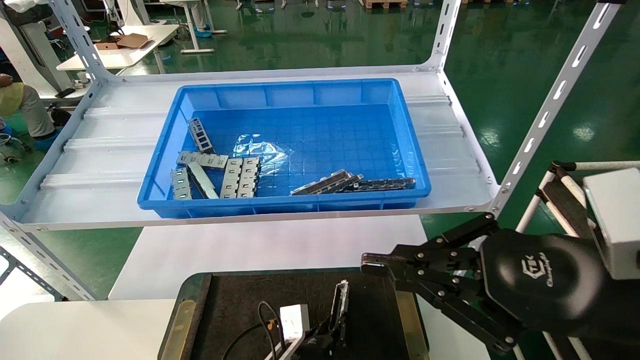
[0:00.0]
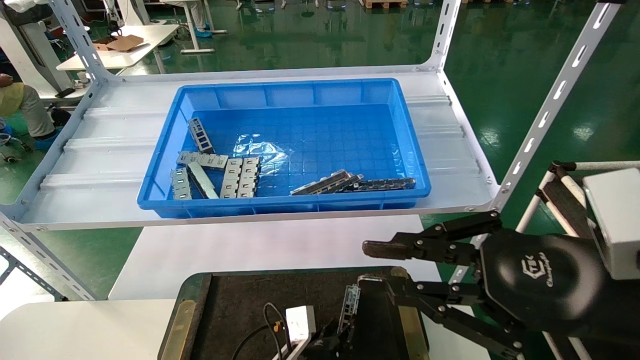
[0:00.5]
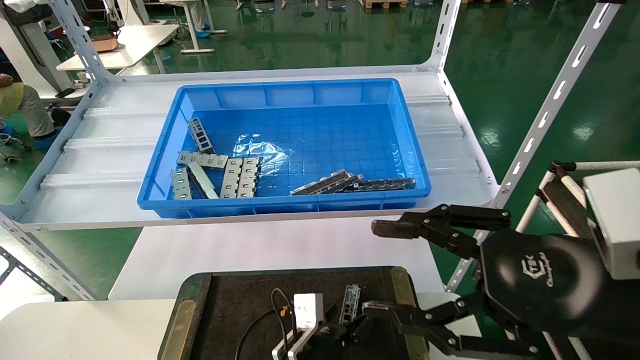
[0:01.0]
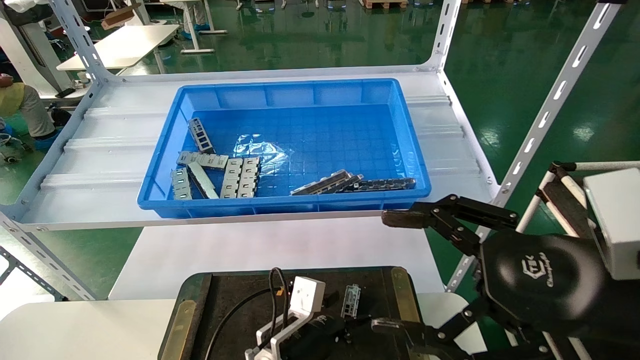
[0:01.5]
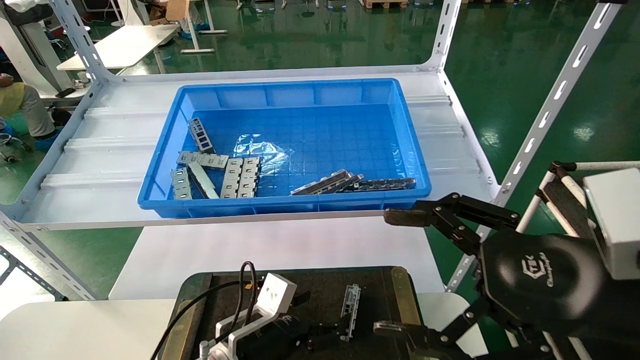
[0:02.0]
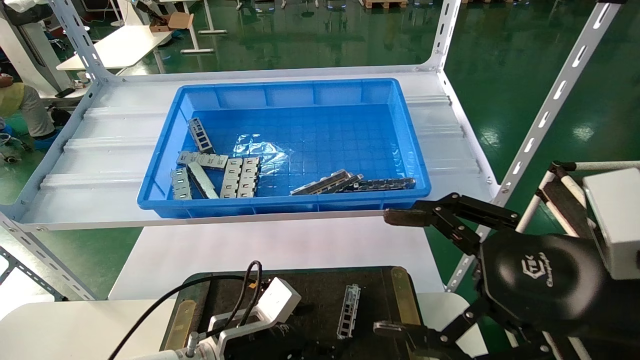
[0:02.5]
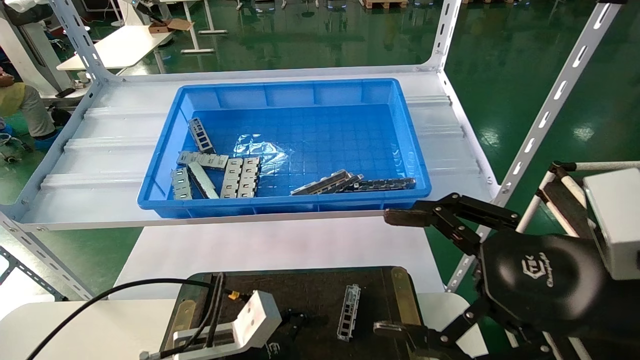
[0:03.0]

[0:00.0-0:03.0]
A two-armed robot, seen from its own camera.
Task of the whole recording: Grasp the part with one hand and place it on the black container.
0:00.0 to 0:01.5: The left gripper shifts some 5 cm upward, and opens its fingers; the right gripper opens its fingers.
0:01.5 to 0:03.0: The left gripper moves to the left, backward and upward, roughly 15 cm.
